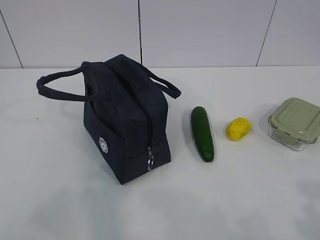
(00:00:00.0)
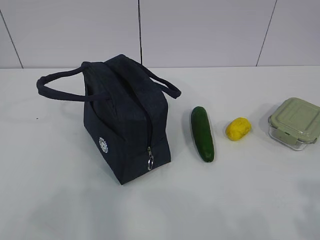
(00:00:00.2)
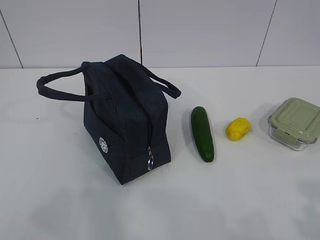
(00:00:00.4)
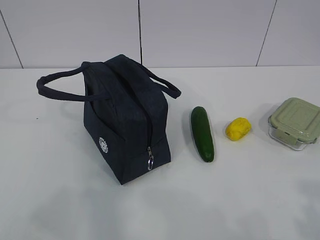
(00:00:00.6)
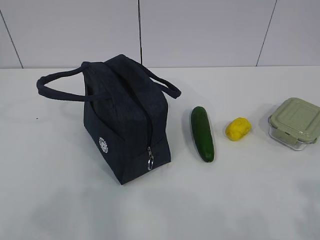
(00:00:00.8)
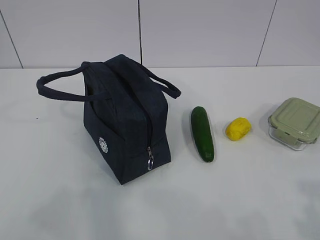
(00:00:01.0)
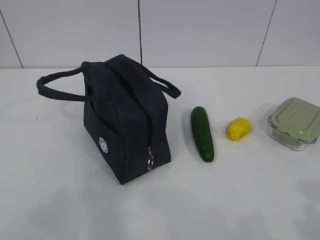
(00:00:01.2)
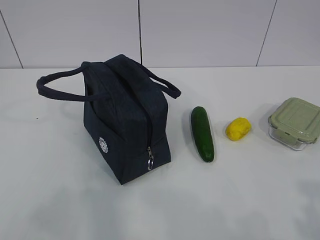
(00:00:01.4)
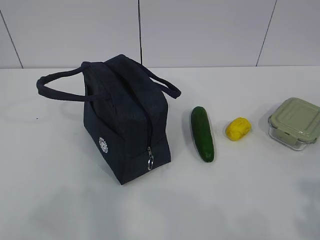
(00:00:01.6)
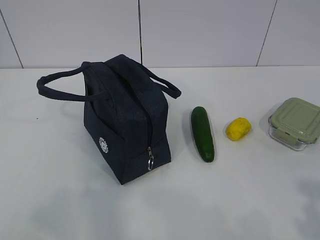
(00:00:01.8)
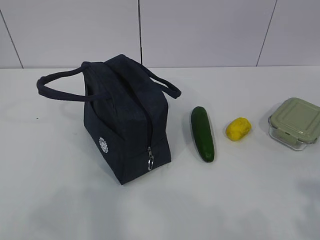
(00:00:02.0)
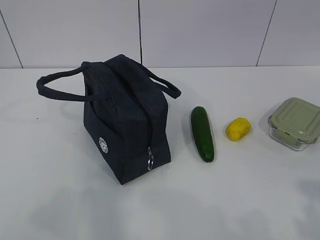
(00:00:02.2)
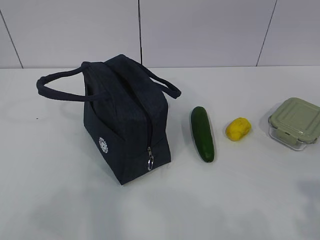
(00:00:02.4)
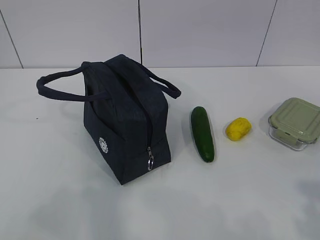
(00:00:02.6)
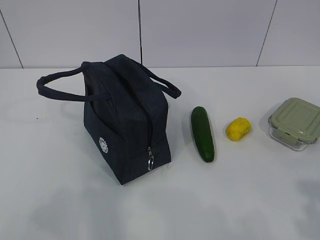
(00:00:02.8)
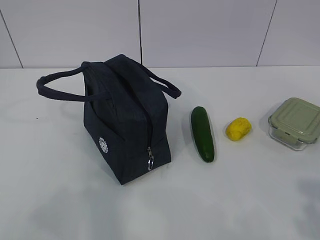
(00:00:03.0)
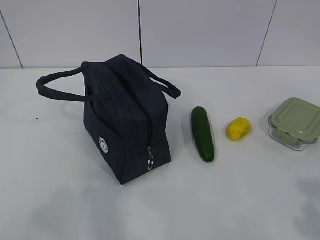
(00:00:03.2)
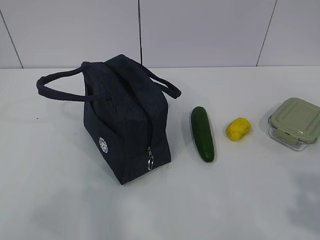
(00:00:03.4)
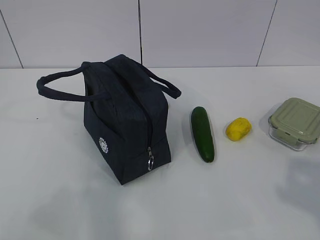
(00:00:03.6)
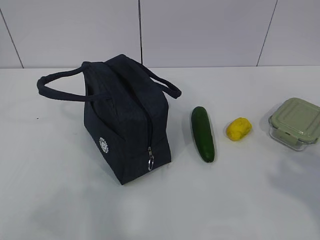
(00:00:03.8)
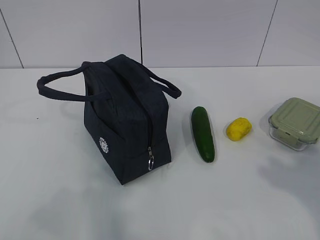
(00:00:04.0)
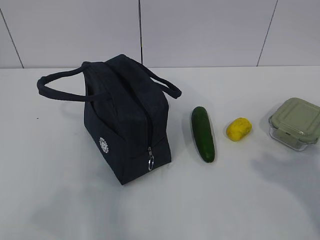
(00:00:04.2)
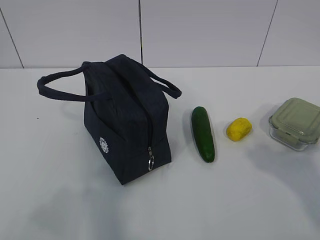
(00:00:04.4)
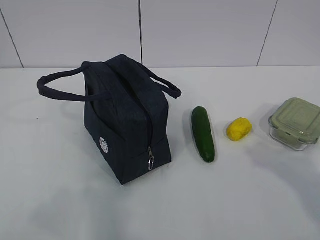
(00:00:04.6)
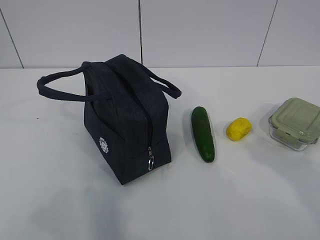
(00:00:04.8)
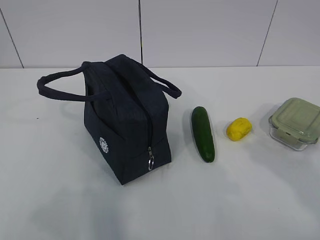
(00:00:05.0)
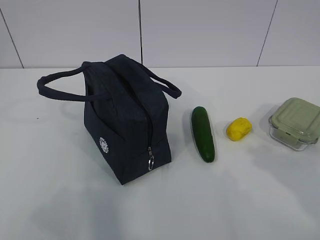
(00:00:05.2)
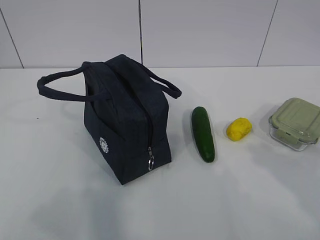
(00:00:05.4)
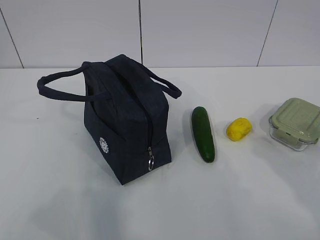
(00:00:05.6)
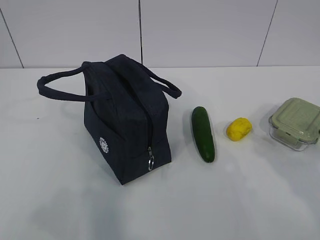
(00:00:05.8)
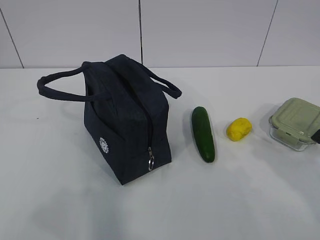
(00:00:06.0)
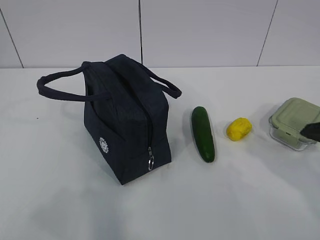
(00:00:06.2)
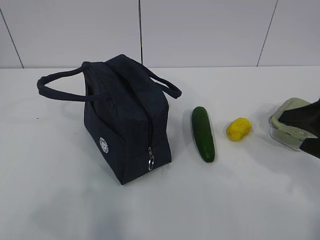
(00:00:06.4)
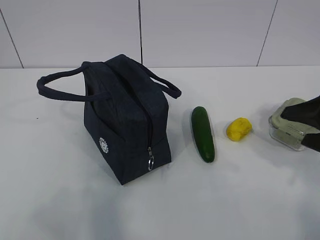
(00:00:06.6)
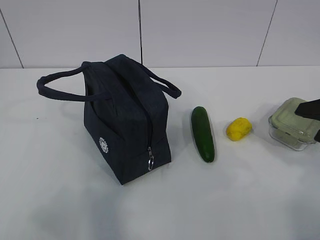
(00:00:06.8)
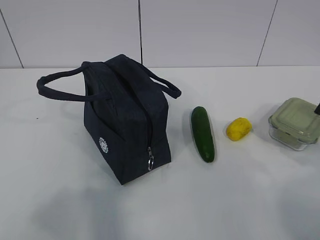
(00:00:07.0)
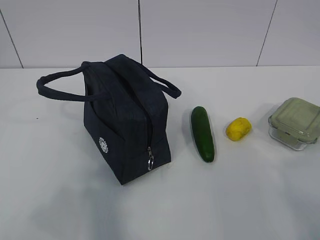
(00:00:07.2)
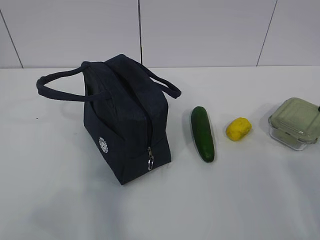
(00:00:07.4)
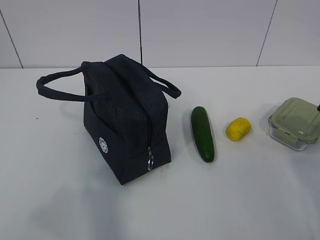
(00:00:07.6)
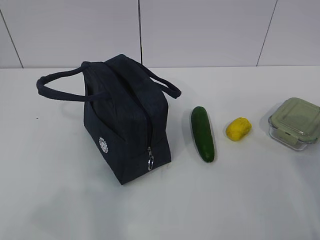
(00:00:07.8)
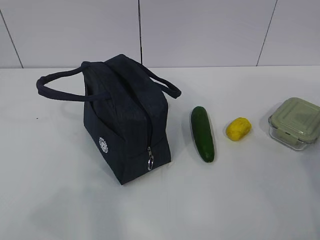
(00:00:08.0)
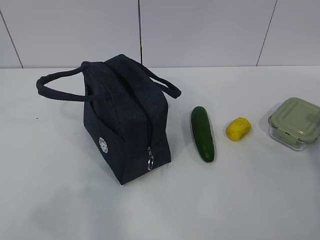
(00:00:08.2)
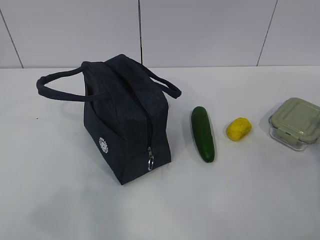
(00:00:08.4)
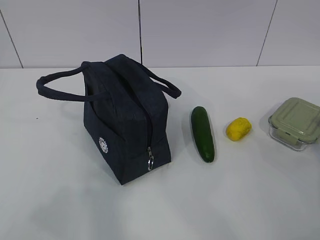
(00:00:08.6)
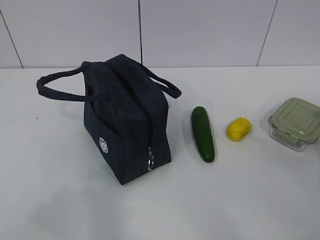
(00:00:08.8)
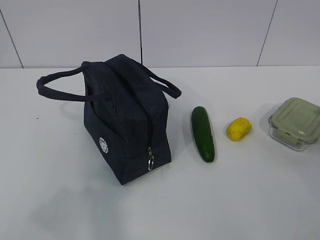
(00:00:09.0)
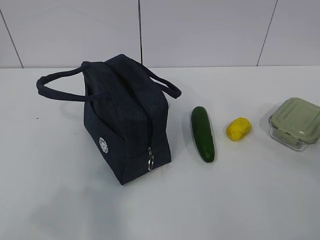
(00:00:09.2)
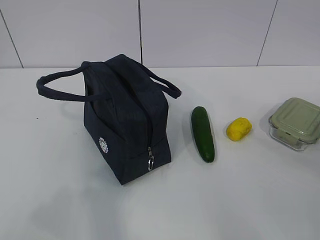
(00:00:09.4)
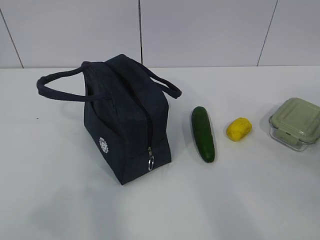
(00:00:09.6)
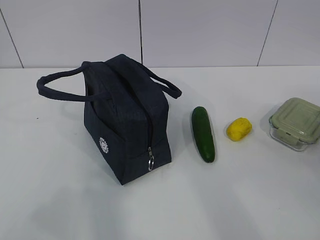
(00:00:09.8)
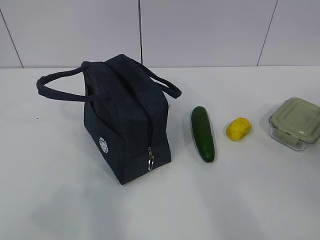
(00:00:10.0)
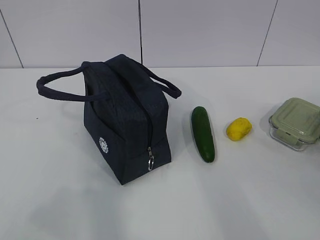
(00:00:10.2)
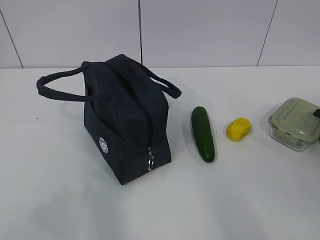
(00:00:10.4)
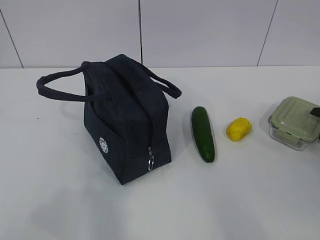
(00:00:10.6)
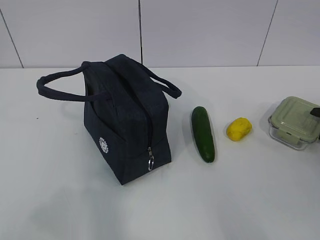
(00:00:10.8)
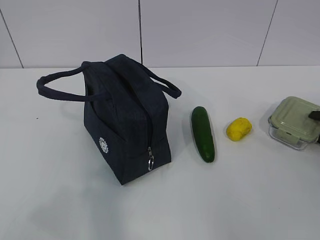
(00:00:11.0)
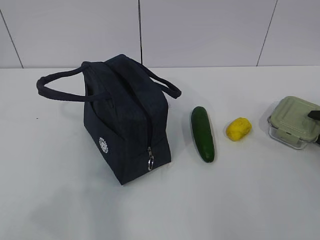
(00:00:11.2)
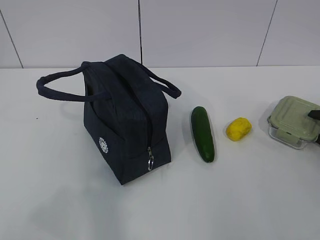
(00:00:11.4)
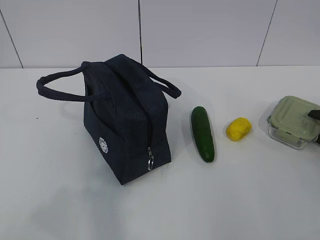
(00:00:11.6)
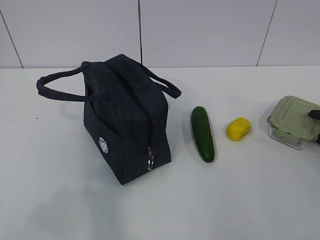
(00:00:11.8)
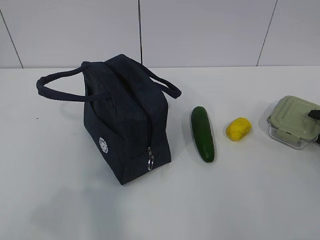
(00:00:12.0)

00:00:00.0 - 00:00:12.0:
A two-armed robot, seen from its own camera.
00:00:01.6 - 00:00:03.0: Both grippers stay put.
00:00:03.0 - 00:00:04.4: The right gripper shifts approximately 10 cm forward.
00:00:04.4 - 00:00:06.0: The right gripper travels forward and downward by some 10 cm.
00:00:06.0 - 00:00:07.6: The right gripper goes about 10 cm to the right and forward.

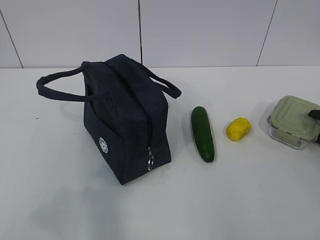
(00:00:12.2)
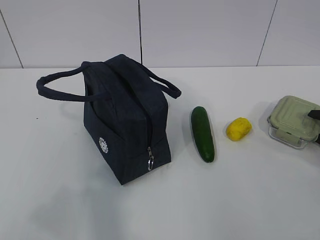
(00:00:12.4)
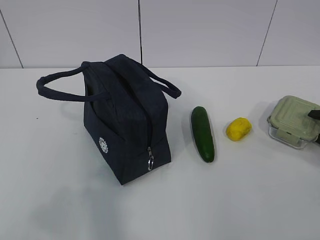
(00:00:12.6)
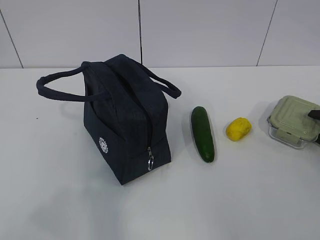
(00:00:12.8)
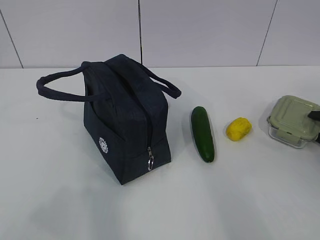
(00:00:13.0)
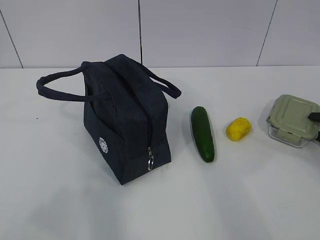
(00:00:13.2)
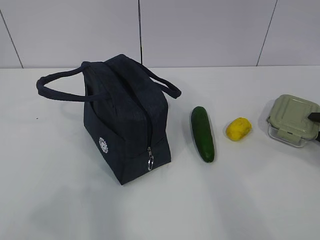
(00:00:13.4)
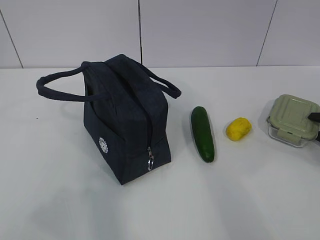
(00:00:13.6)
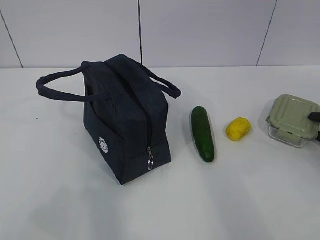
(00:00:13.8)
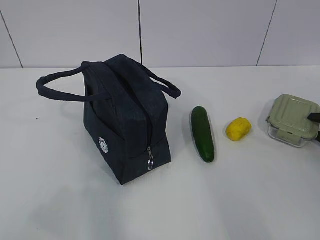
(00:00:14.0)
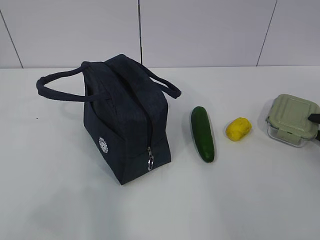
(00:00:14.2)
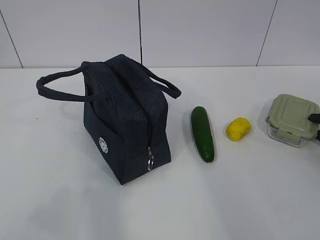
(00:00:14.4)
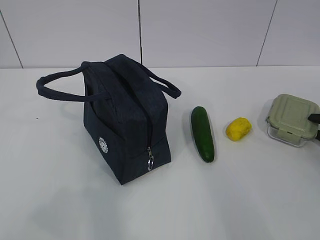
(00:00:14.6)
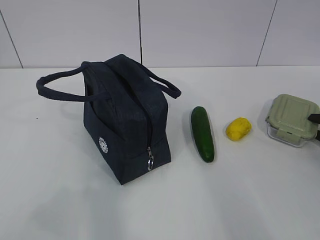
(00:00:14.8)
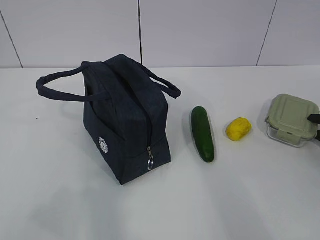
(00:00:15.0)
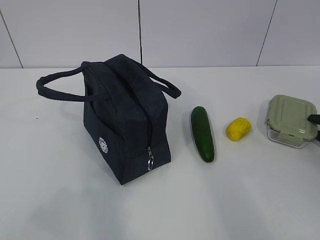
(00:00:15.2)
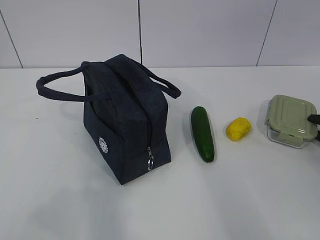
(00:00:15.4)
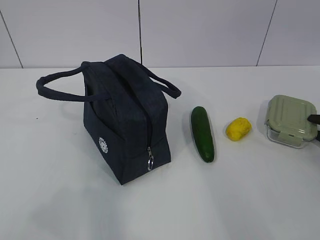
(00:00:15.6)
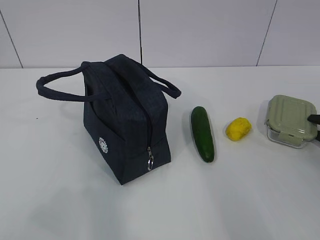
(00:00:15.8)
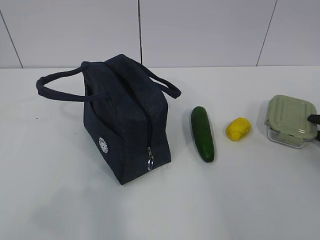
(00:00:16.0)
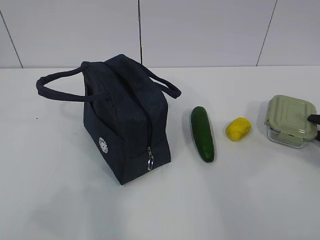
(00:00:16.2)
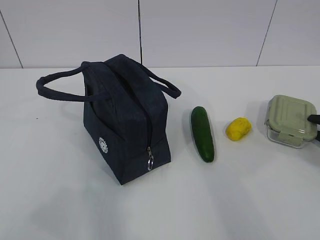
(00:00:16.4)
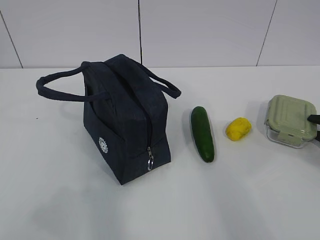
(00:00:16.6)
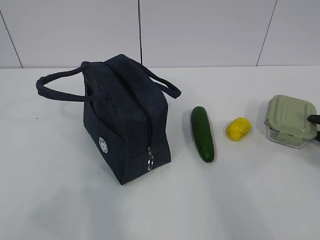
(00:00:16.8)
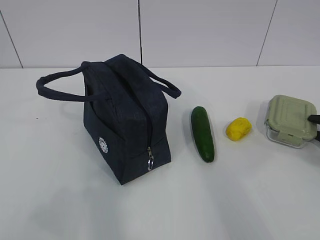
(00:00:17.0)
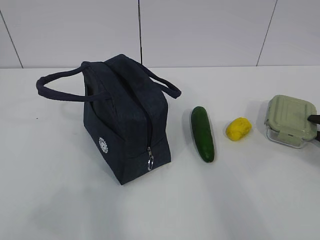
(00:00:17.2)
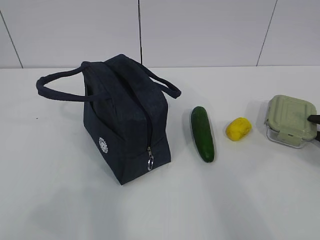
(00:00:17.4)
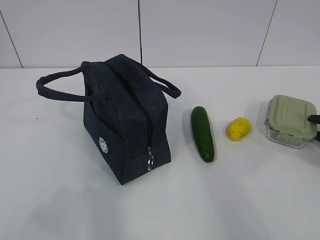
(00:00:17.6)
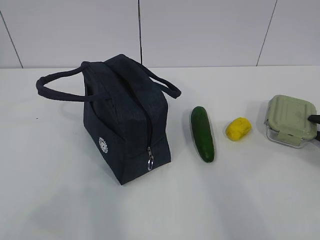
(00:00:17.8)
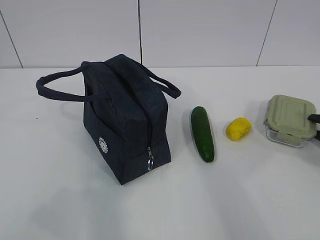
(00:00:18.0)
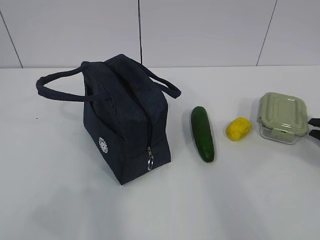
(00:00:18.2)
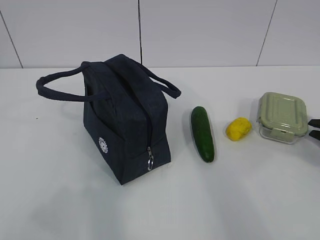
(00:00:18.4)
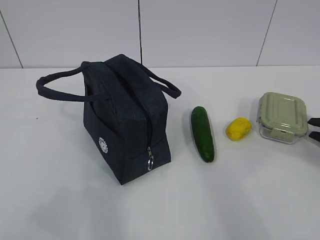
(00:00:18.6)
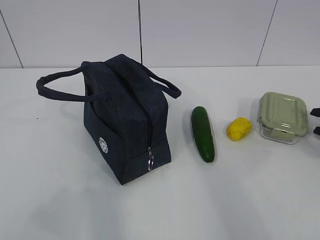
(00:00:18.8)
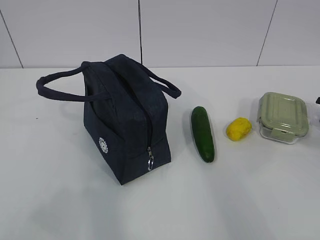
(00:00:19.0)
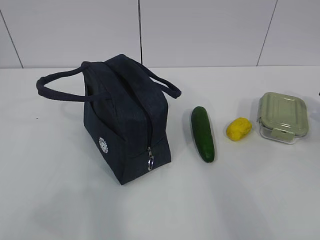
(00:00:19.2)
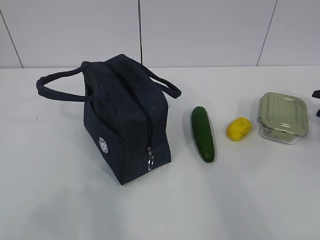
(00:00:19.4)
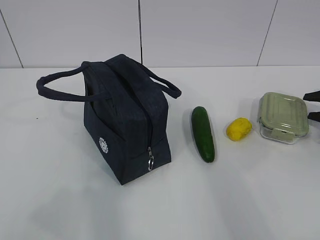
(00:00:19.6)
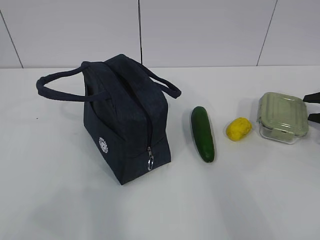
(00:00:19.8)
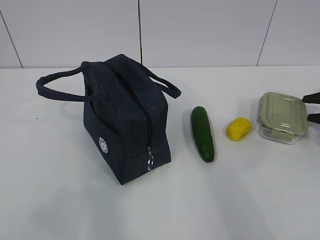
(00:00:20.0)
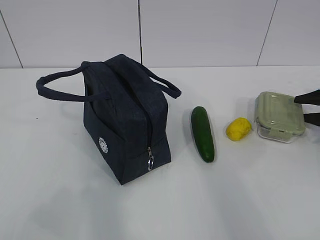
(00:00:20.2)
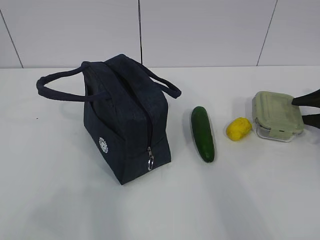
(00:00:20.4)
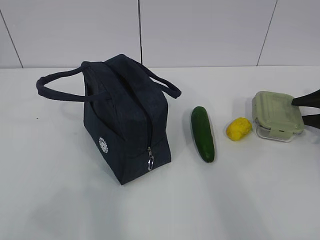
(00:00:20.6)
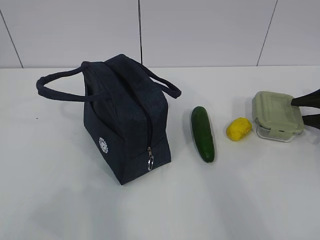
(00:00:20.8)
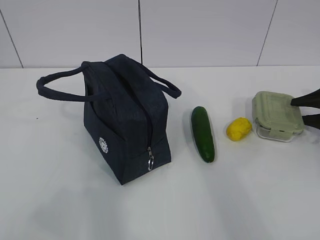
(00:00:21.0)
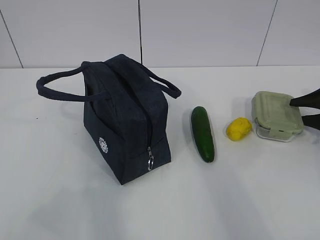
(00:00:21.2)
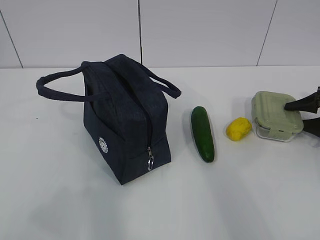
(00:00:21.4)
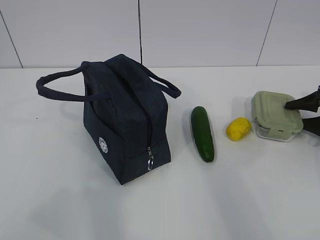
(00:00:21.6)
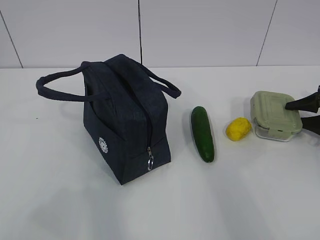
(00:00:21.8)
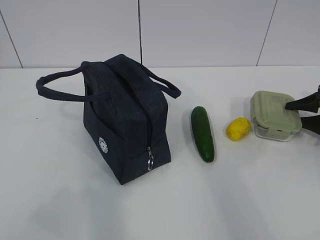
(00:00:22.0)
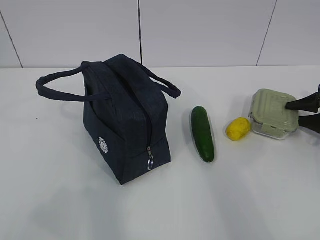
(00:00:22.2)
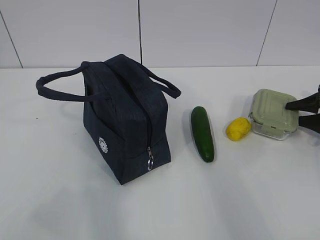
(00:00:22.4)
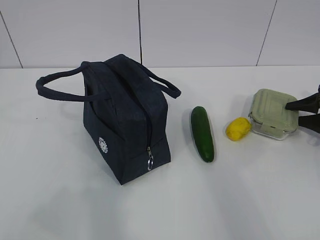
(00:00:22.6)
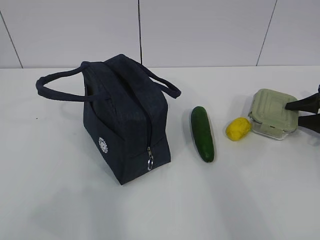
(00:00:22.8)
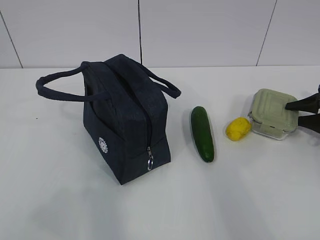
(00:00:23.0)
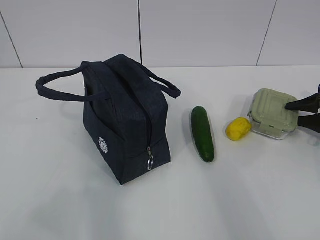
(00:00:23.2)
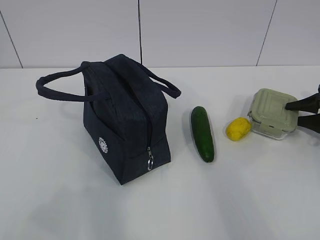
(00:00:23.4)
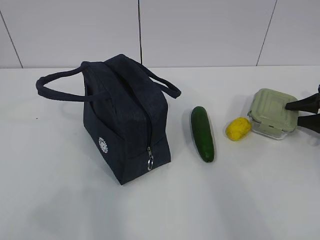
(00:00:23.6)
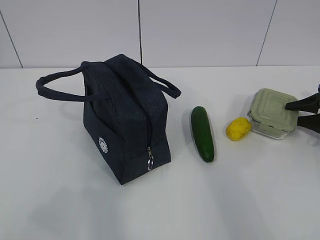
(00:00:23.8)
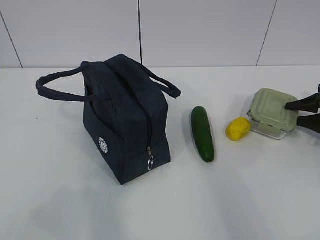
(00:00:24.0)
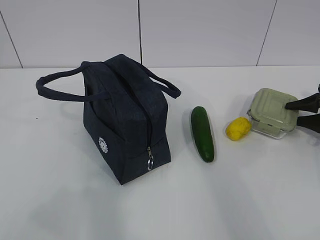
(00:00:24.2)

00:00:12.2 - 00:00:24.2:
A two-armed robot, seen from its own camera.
Step, 00:00:12.2 - 00:00:18.4: Grab the lunch box with your right hand.
00:00:12.2 - 00:00:16.6: Neither gripper changes place.
00:00:16.6 - 00:00:18.2: Both grippers stay put.
00:00:18.2 - 00:00:19.8: The right gripper is displaced forward by approximately 5 cm, and opens.
00:00:19.8 - 00:00:22.6: The grippers stay close to where they were, moving slightly.
00:00:22.6 - 00:00:24.2: Both grippers stay about where they are.
